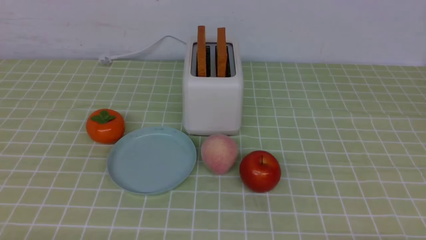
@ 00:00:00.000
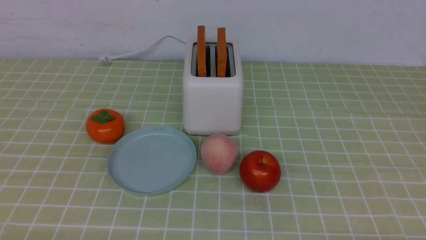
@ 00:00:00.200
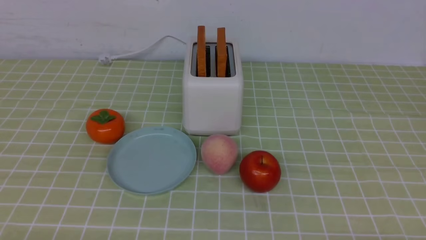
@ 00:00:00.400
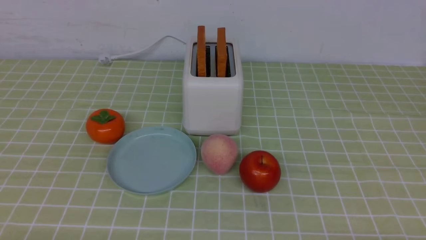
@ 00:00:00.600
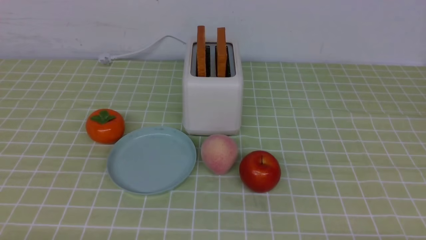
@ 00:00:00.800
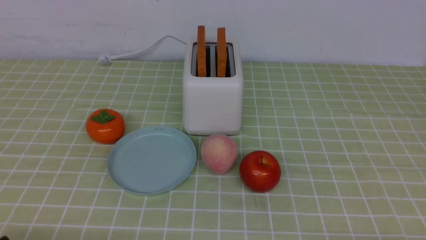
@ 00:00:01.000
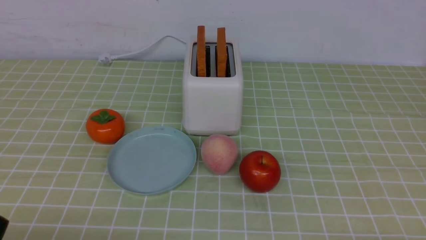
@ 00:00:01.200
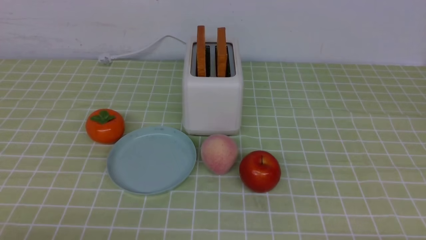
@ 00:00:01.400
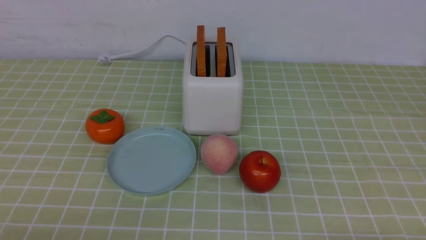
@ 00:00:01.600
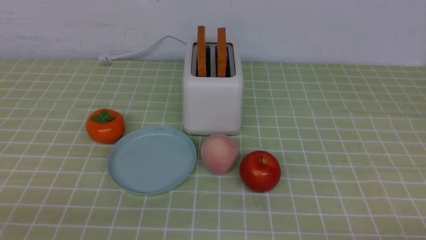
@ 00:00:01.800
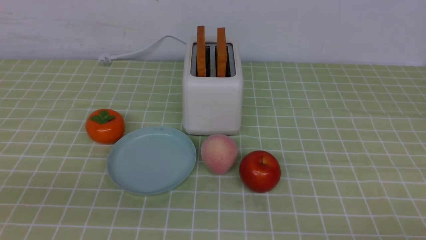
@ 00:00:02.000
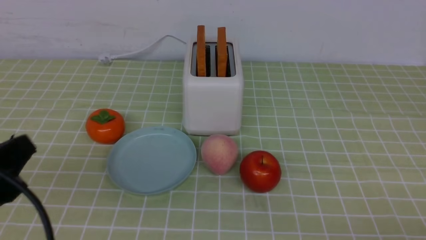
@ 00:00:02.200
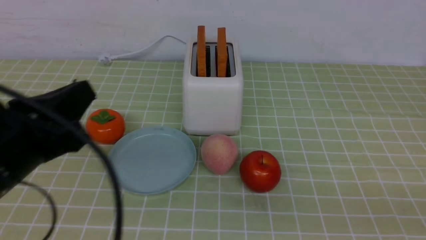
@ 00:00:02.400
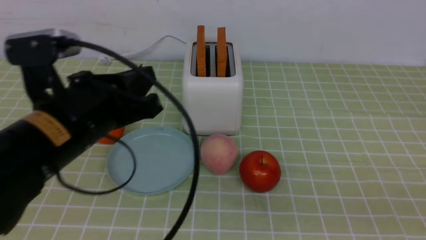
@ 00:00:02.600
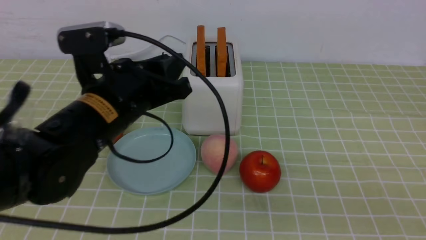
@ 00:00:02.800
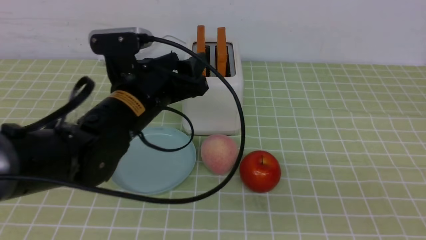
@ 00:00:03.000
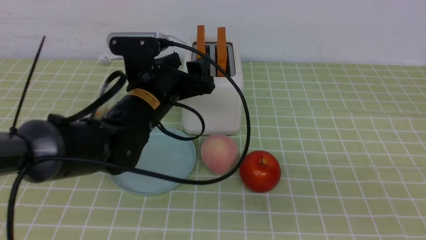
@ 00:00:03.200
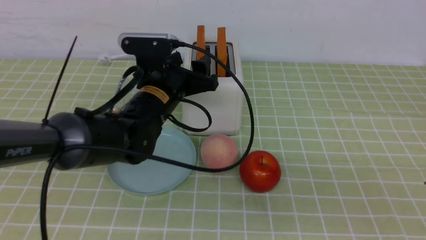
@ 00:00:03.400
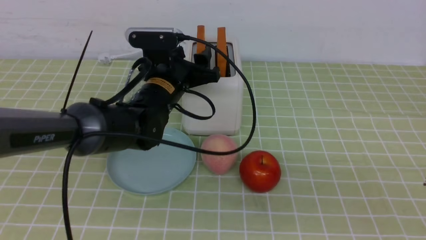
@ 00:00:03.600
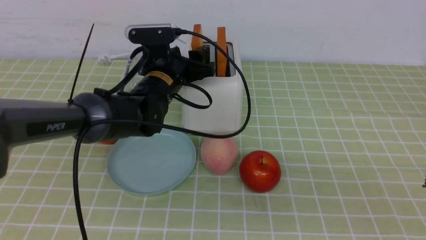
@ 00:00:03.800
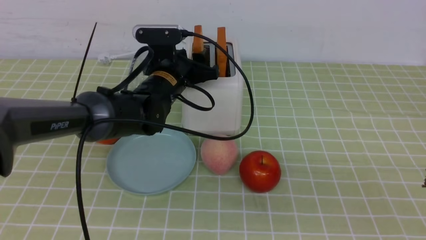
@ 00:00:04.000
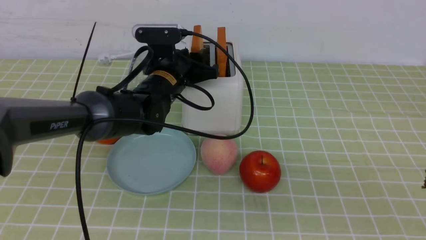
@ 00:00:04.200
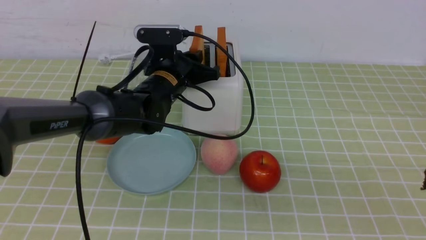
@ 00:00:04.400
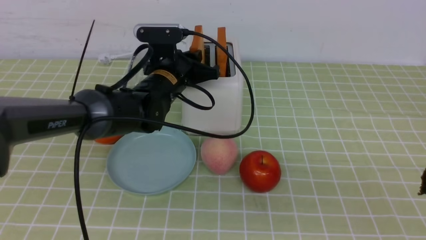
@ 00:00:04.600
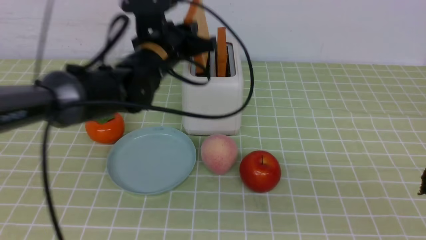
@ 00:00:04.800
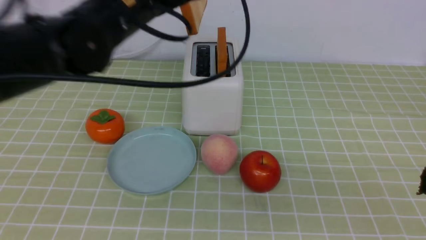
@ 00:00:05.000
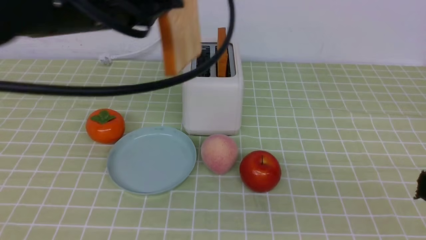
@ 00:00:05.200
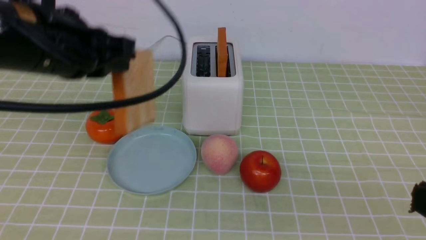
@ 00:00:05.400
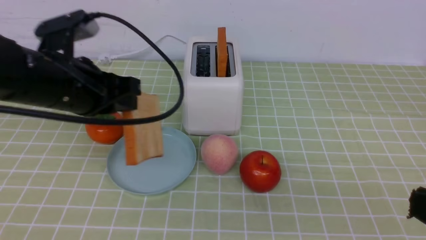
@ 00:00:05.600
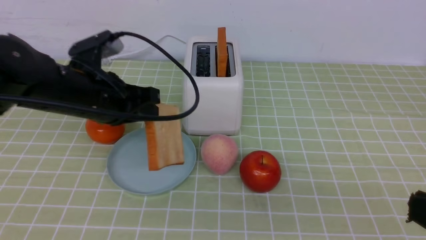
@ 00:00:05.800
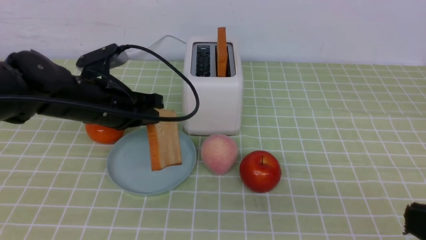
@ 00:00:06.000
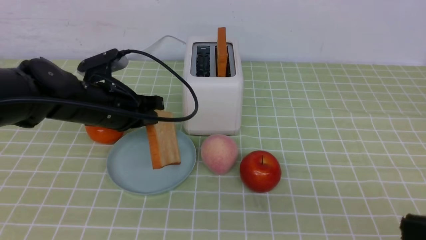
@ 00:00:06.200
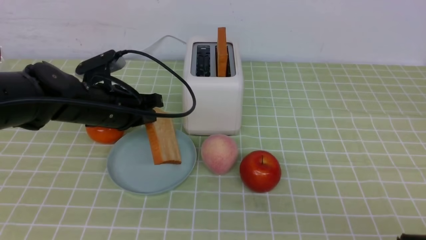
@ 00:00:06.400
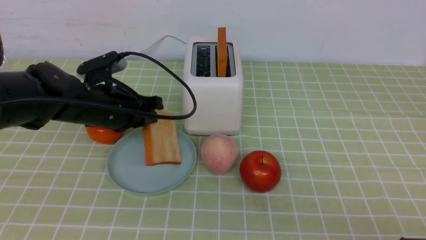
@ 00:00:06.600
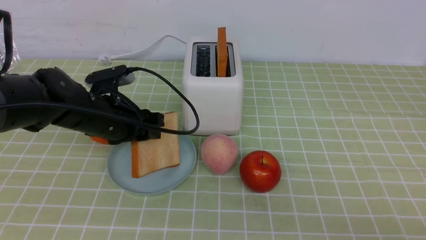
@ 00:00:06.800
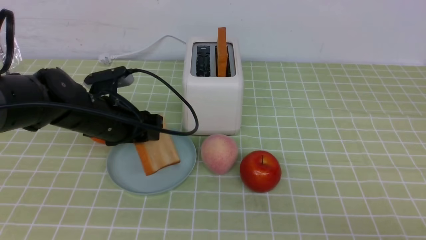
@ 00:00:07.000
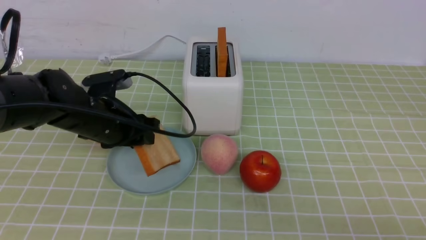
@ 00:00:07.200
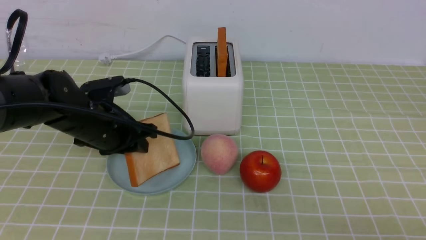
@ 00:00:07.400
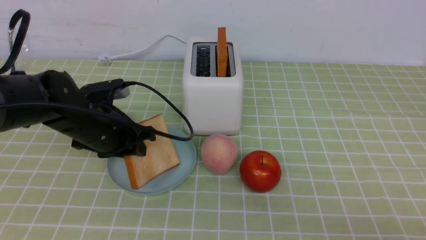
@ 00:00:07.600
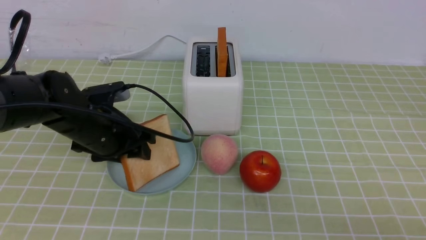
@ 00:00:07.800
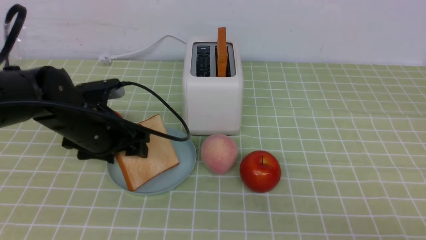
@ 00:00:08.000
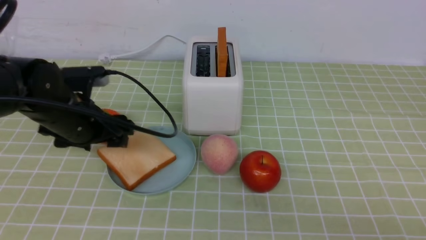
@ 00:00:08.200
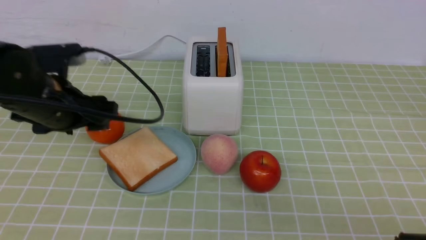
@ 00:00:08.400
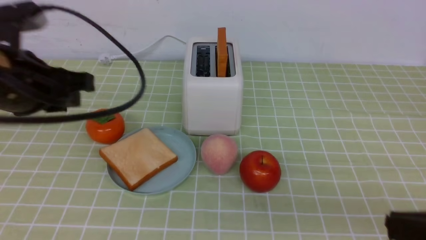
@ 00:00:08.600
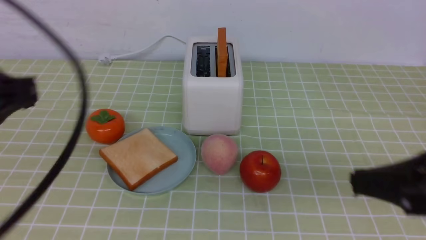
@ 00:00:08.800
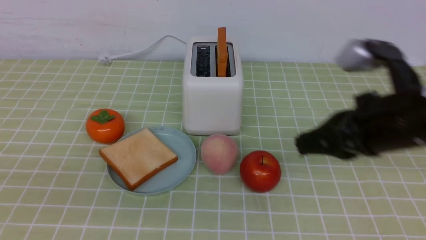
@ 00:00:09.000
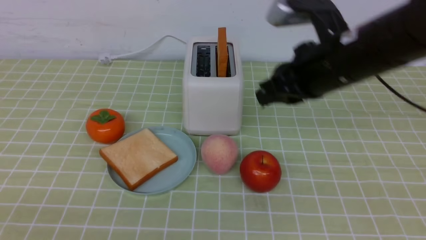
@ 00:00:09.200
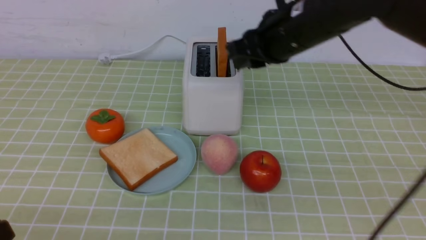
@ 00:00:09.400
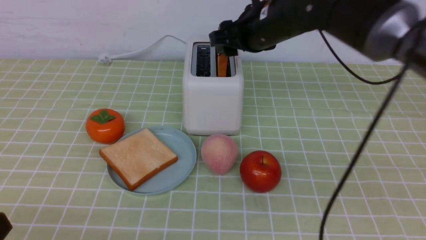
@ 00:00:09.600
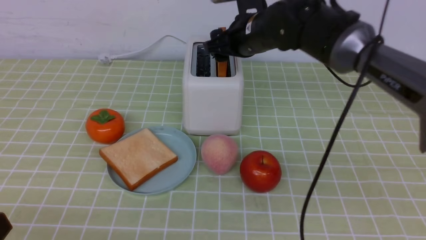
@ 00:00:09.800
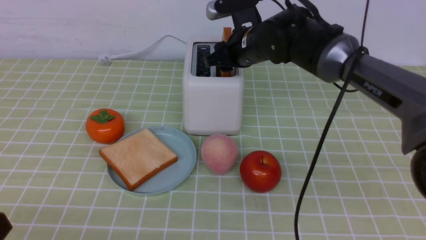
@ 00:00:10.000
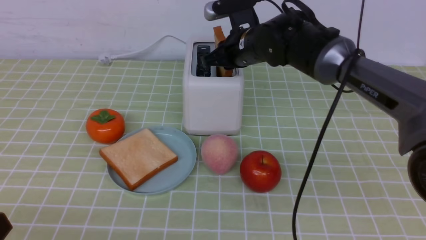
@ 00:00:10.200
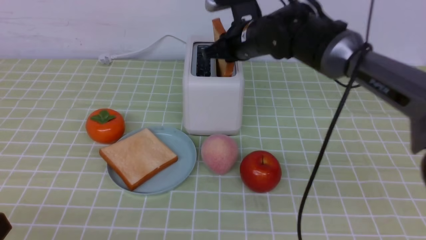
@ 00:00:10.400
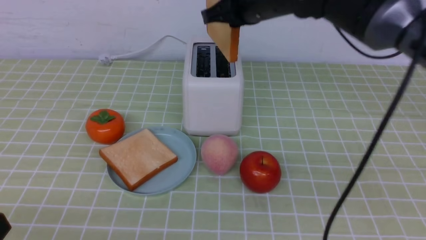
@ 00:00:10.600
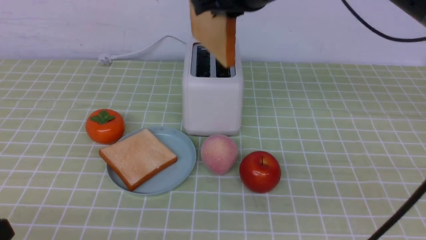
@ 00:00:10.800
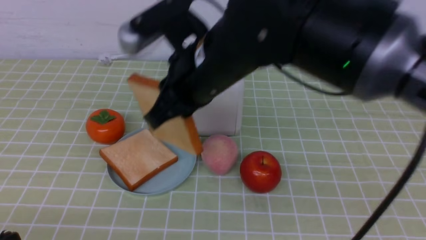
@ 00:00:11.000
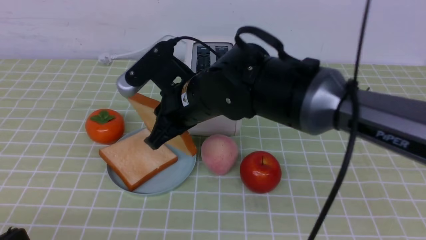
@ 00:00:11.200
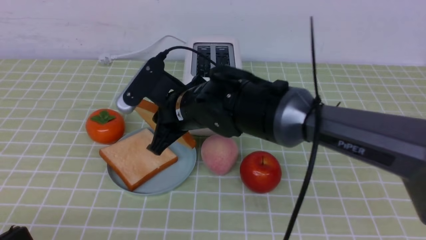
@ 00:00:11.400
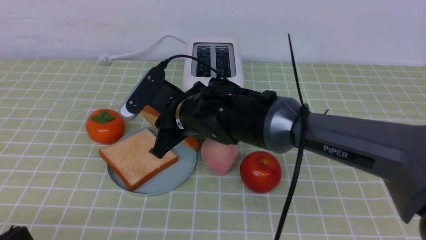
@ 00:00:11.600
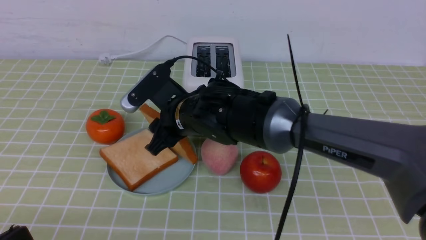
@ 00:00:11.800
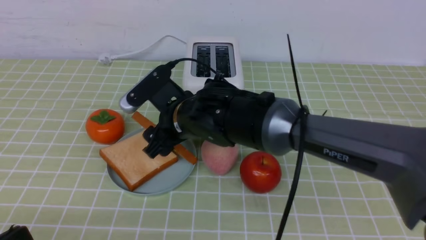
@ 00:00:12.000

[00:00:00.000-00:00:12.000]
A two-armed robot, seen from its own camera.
Task of the whole recording: take toasted bread from bread machine on green coffee tablecloth place on plate.
Step, 00:00:00.000 to 00:00:05.000: use the left arm to take out a slice of bread.
Step, 00:00:05.200 to 00:00:08.400: use the left arm to put a slice of bread into the empty plate.
Step, 00:00:08.600 to 00:00:10.600: use the right arm to take out a slice of bread.
00:00:01.600 to 00:00:03.000: The right gripper is displaced upward by roughly 15 cm, and closes its fingers. The left gripper shifts roughly 30 cm forward and to the right, and opens its fingers.
00:00:03.000 to 00:00:04.400: The left gripper goes about 10 cm forward, and closes its fingers.
00:00:04.400 to 00:00:06.000: The left gripper travels to the left and backward by some 10 cm, and reaches roughly 15 cm upward, then returns.
00:00:06.000 to 00:00:07.600: The left gripper opens up.
00:00:07.600 to 00:00:09.000: The left gripper is displaced backward and upward by approximately 30 cm, and closes, while the right gripper shifts some 20 cm forward.
00:00:09.000 to 00:00:10.400: The left gripper heads downward, covering roughly 10 cm, while the right gripper heads forward and to the left, covering some 25 cm, and opens, then closes once more.
00:00:10.400 to 00:00:12.000: The right gripper heads backward, to the left and downward, covering some 20 cm, and opens its fingers.

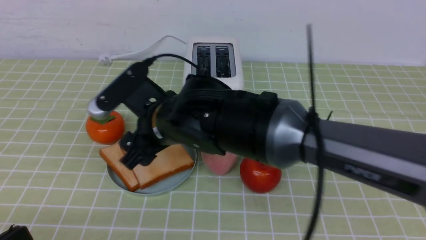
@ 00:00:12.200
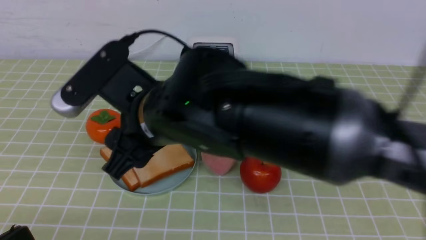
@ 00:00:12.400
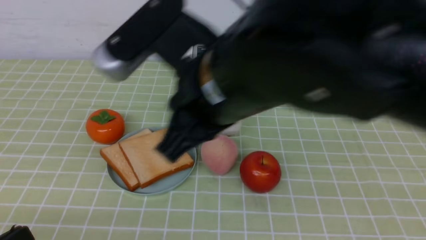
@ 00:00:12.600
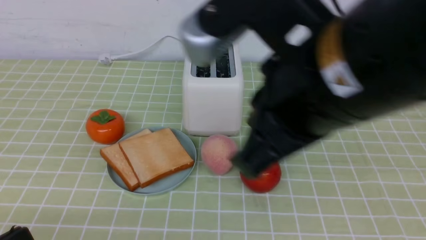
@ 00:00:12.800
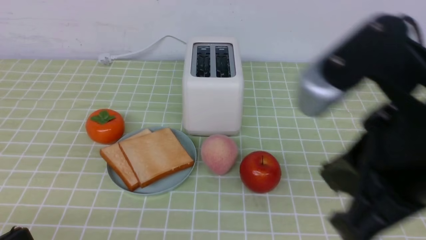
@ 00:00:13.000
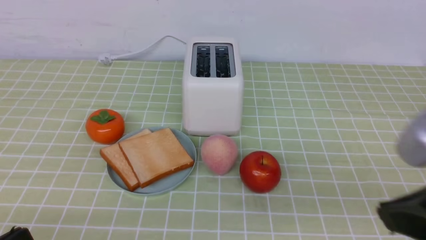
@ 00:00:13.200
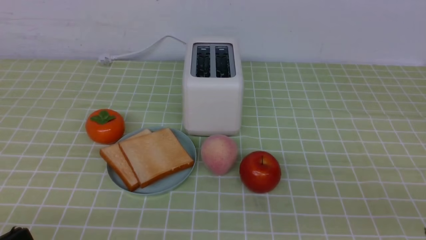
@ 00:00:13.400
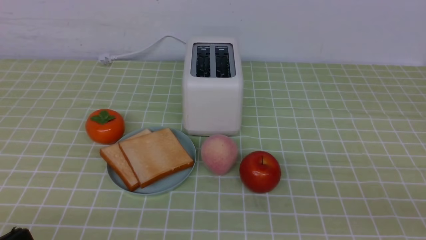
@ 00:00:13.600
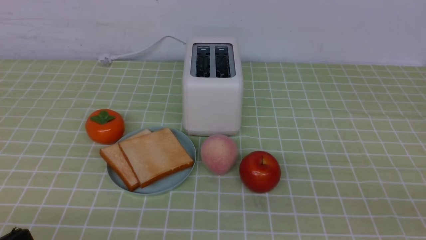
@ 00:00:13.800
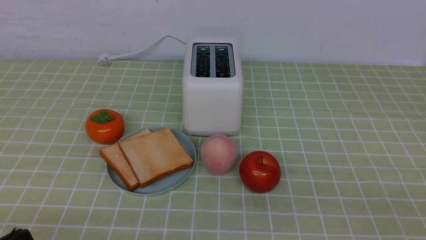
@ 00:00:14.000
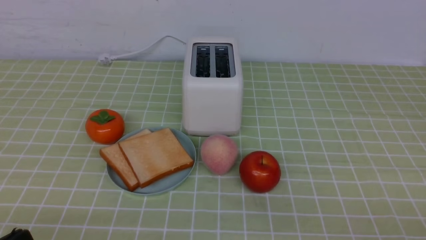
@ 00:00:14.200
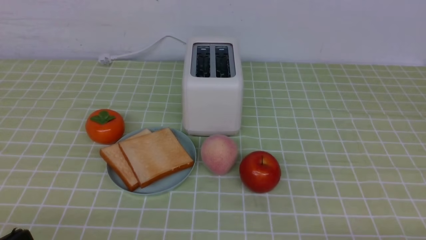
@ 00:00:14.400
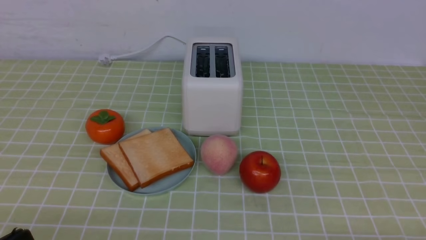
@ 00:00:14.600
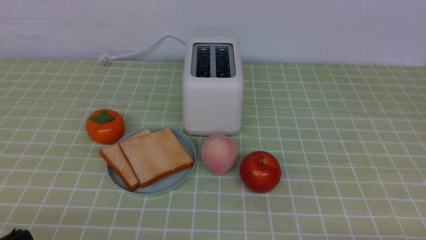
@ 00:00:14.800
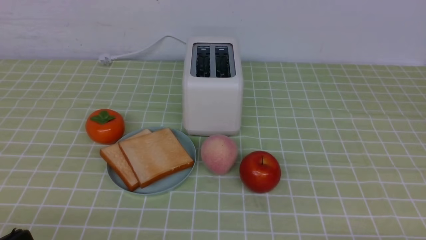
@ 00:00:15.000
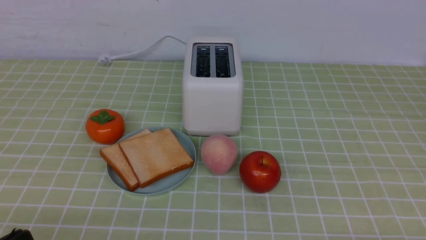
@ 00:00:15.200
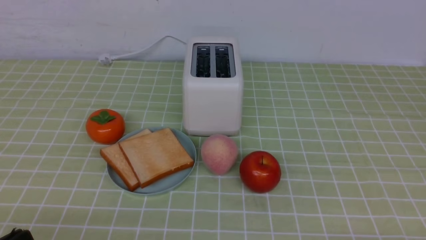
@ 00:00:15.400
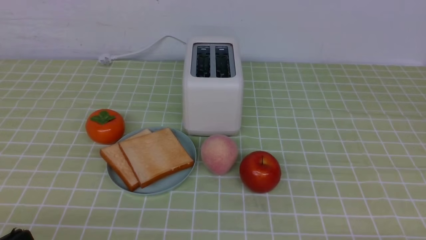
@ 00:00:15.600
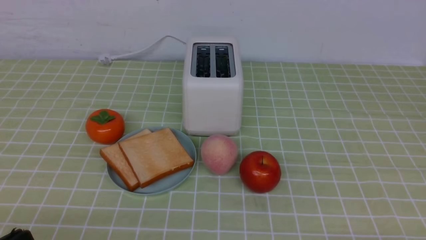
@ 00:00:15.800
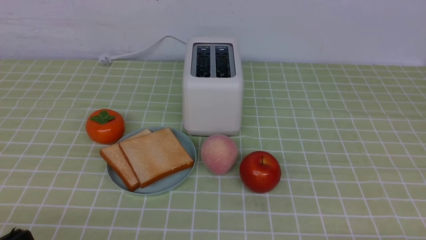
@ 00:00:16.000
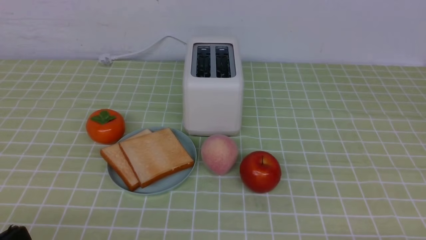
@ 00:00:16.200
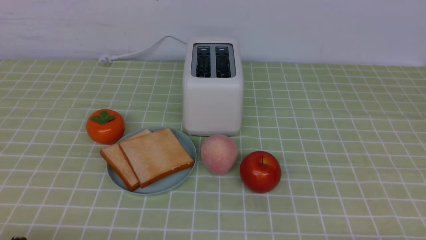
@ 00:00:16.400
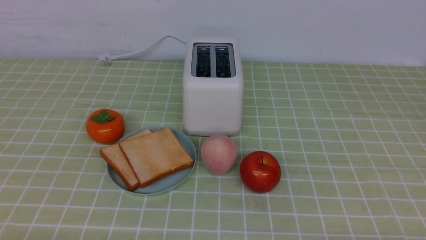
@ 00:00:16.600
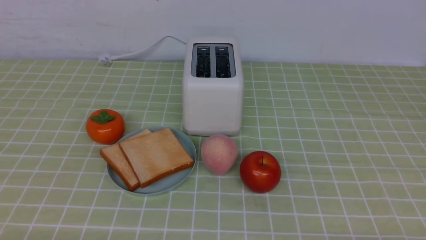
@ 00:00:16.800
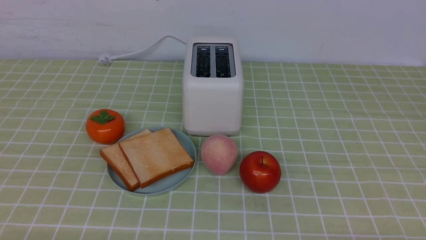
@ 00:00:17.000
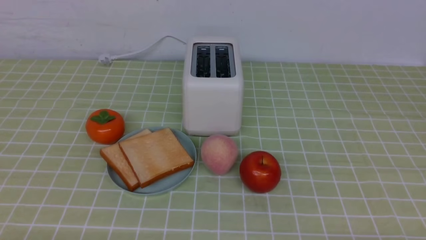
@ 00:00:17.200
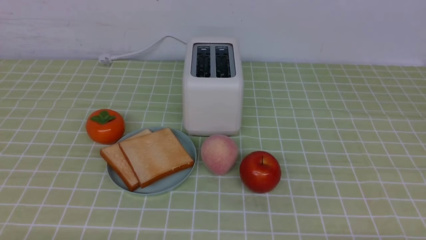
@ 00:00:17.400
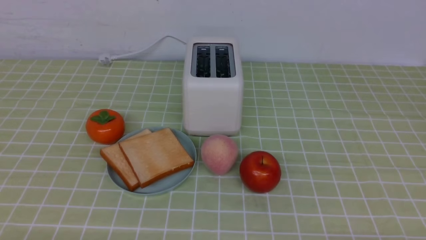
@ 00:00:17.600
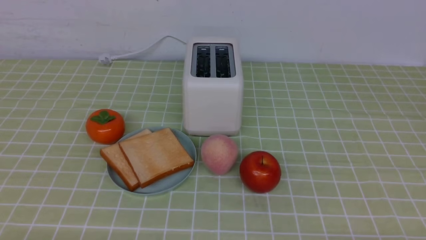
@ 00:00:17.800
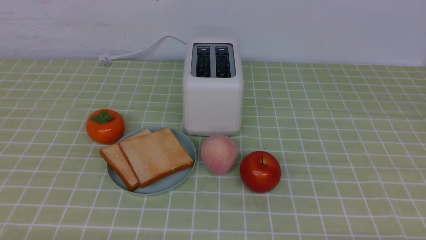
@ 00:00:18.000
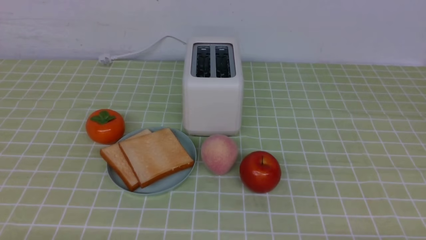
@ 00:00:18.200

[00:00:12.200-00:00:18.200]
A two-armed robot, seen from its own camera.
Task of the whole recording: take toasted bread from bread machine on green coffee tablecloth place on plate.
00:00:12.200 to 00:00:13.800: The right gripper goes about 40 cm to the right and backward, and closes.
00:00:16.600 to 00:00:18.200: Neither gripper changes place.
